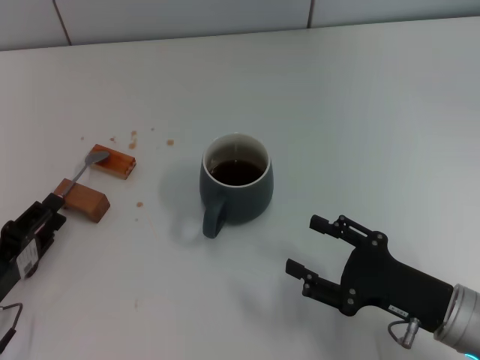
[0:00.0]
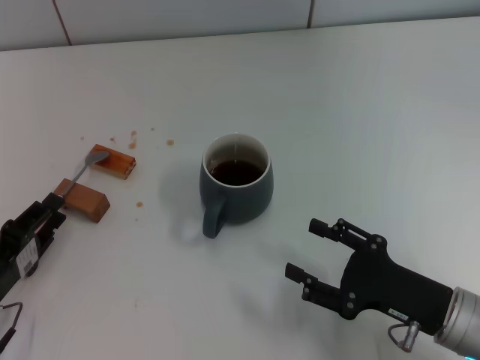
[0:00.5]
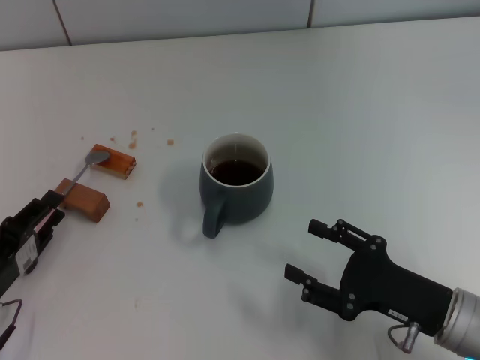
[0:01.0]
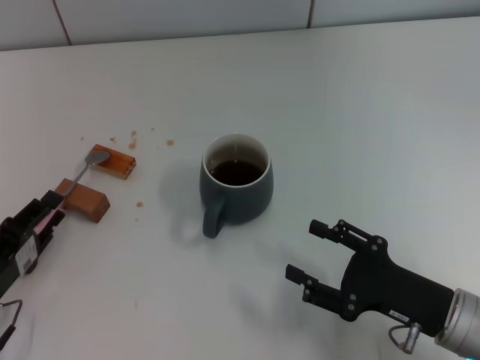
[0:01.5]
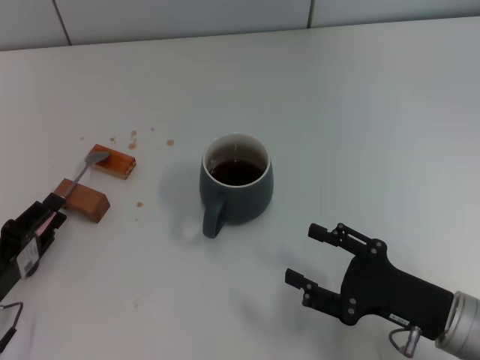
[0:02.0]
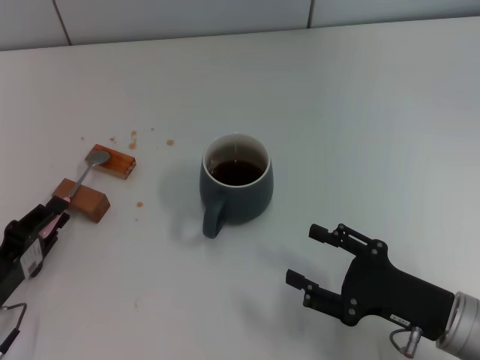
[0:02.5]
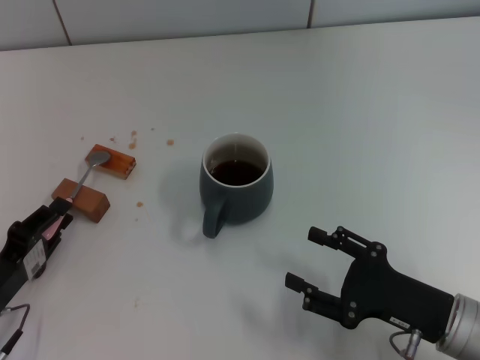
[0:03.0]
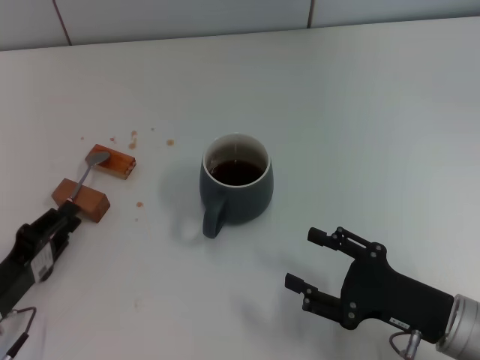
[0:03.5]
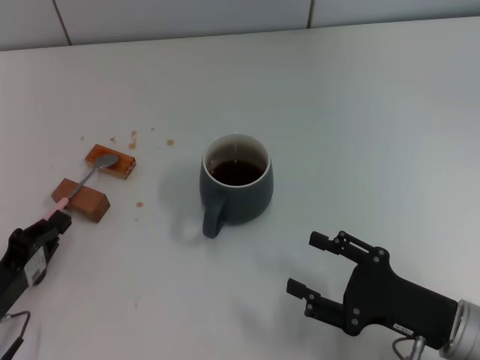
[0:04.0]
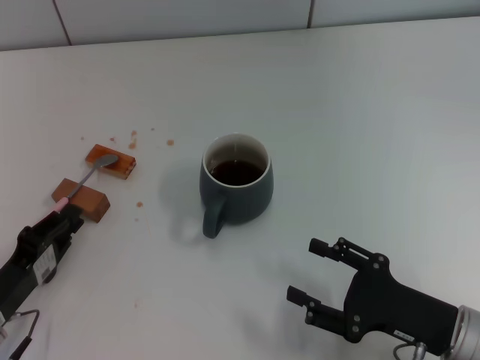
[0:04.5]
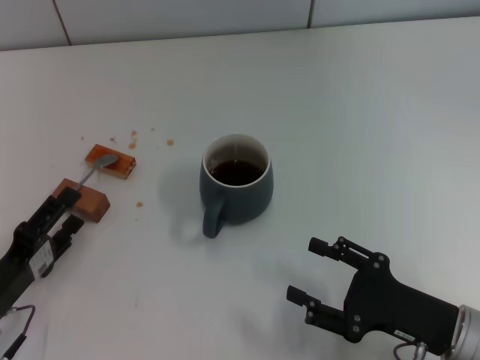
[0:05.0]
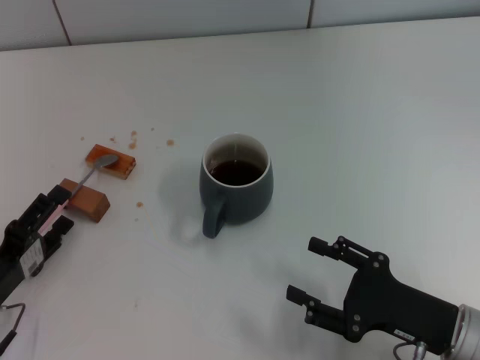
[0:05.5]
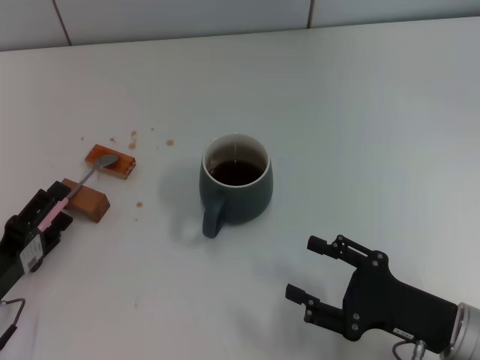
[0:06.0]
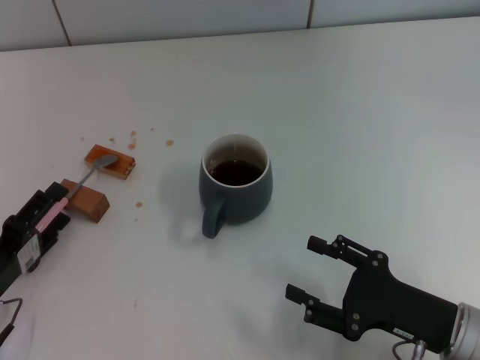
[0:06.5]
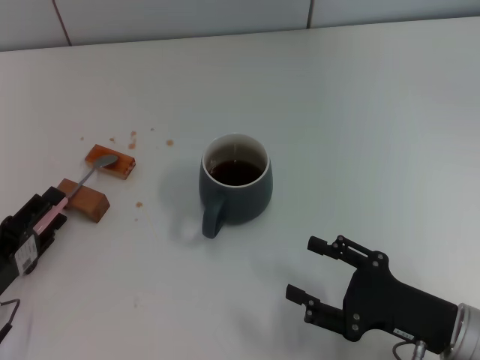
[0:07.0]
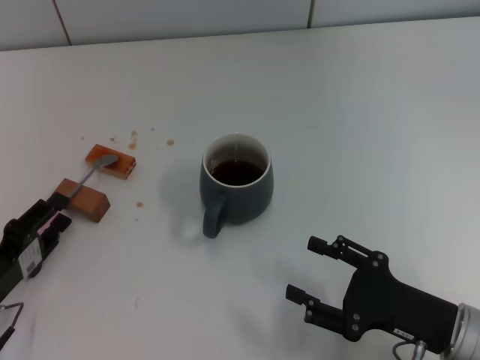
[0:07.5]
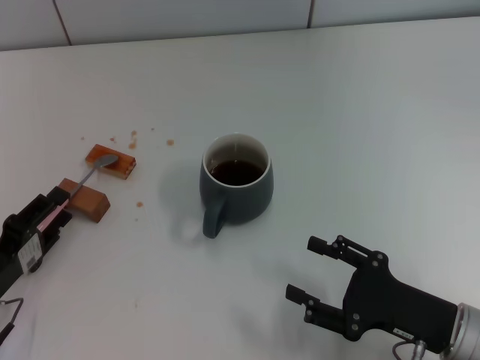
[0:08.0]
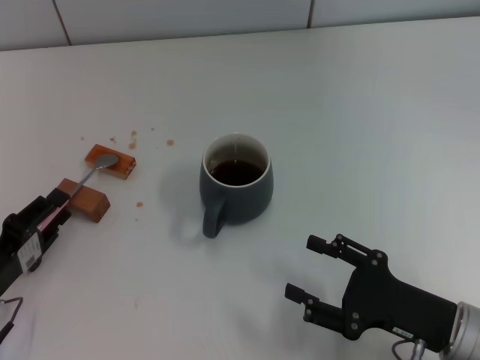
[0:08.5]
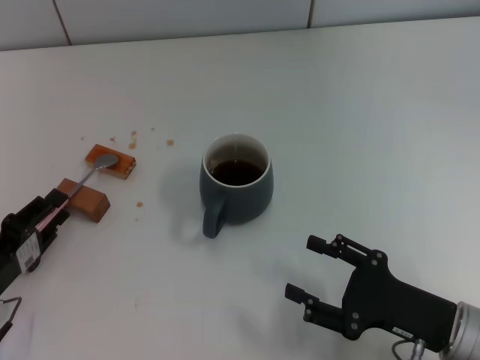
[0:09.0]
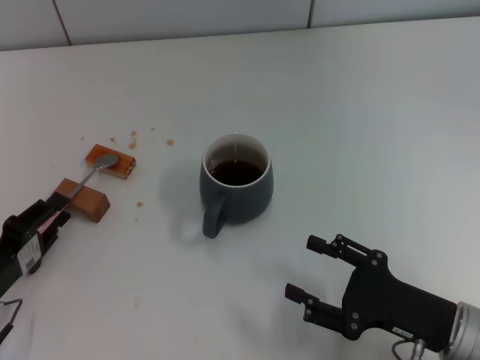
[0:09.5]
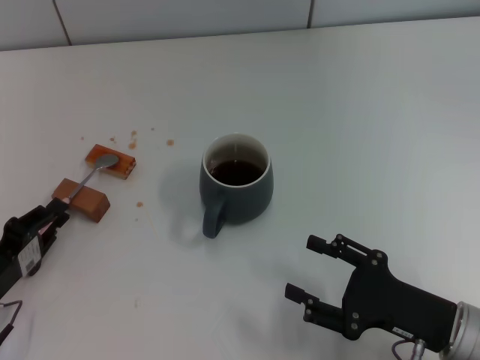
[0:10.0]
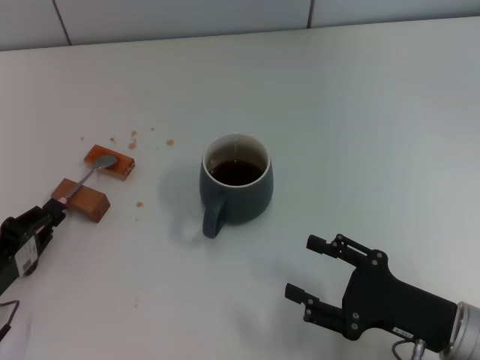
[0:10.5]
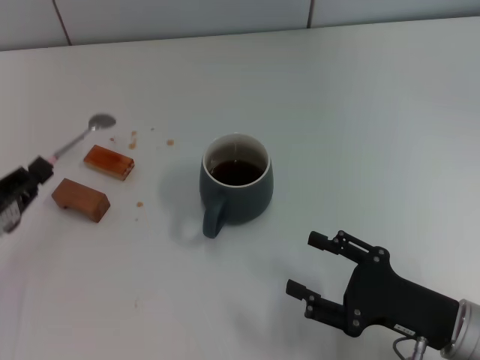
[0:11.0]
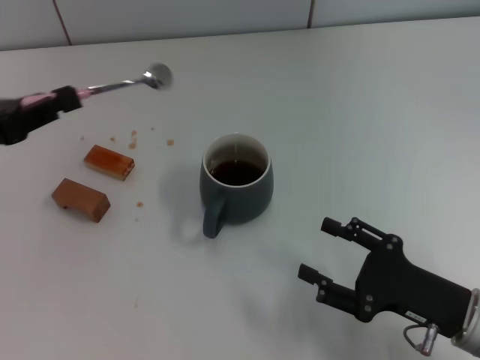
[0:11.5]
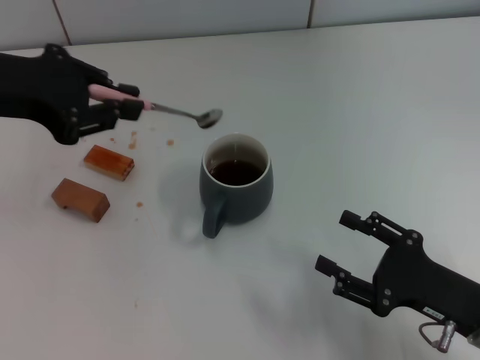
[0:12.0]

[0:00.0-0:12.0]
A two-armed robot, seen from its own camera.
Task of the whole recording: Move the grey cup to the center, lift the pink spoon, stir it three times in the cup, and put the spoon into the cup.
Step, 0:00.0 to 0:10.5: Pick up the spoon with the left gripper.
0:00.0 to 0:04.0: Neither gripper changes place.
0:04.0 to 0:06.0: The left gripper opens its fingers.
0:06.0 to 0:08.0: The left gripper closes up.
0:08.0 to 0:10.0: Both grippers stay put.
0:10.0 to 0:12.0: The left gripper is displaced upward and forward by roughly 25 cm.

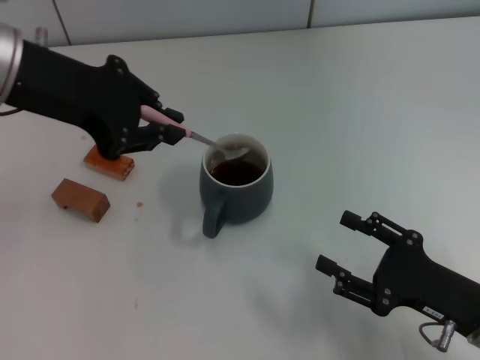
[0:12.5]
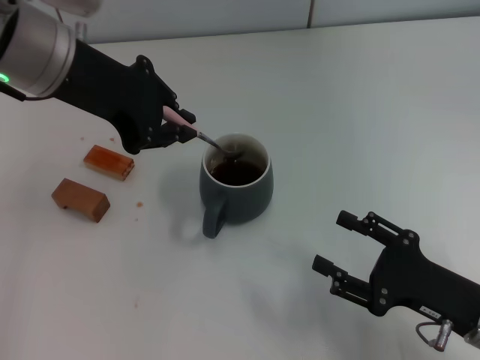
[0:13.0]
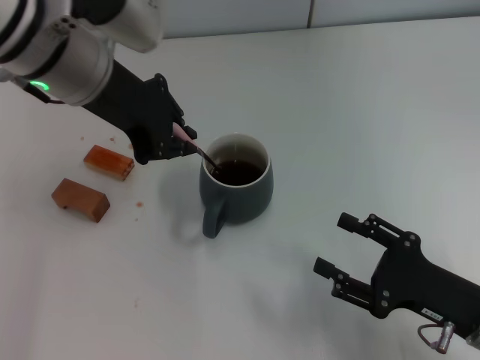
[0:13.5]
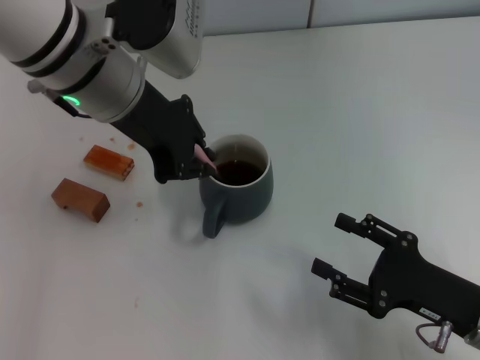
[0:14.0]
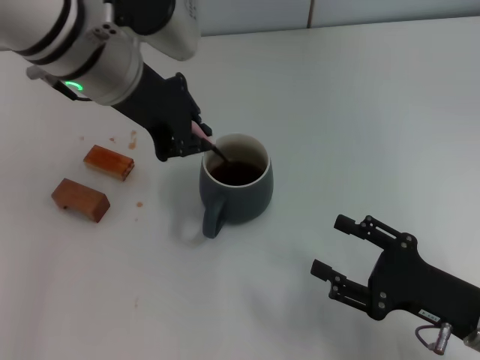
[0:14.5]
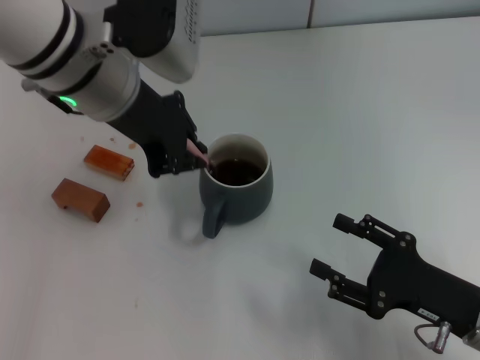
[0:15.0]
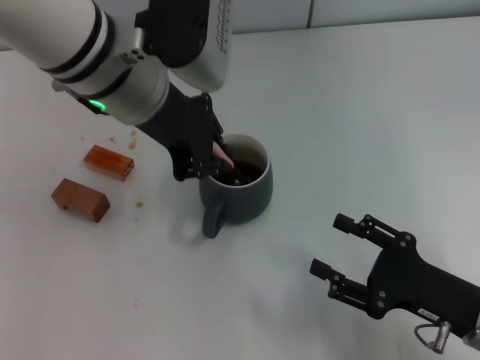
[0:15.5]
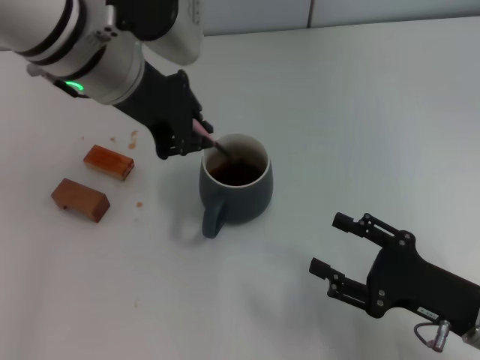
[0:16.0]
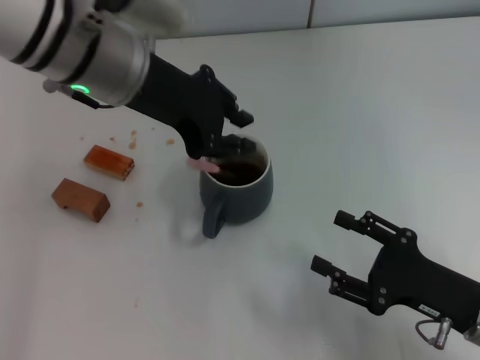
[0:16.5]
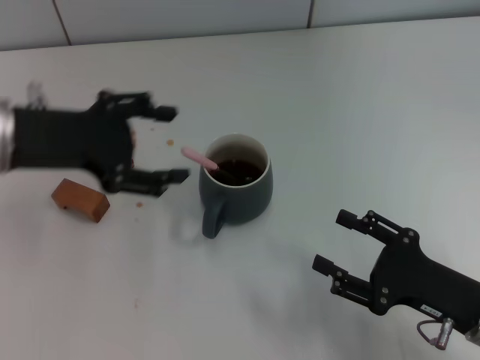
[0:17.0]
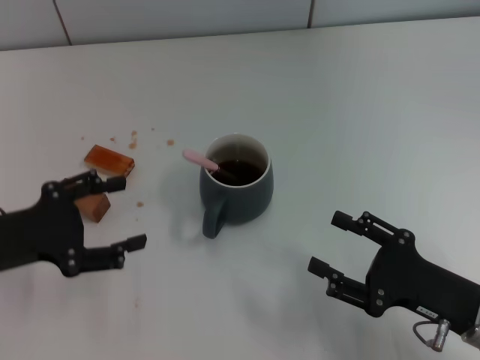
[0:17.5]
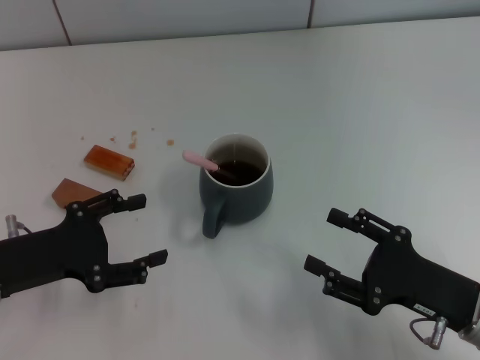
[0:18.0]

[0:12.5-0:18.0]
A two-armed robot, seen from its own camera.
Task of the whole recording: Move the grey cup to the center, lift the pink spoon, stir it three times in the cup, and put the spoon into the cup.
Step, 0:12.5 to 0:16.5: Stir the coffee in the cup with the left gripper.
0:12.5 to 0:14.5: The left gripper shifts about 10 cm to the right.
0:14.5 to 0:16.0: The grippers move only a little.
0:16.0 to 0:18.0: The left gripper heads downward, to the left and backward, covering approximately 25 cm, and opens its fingers.
